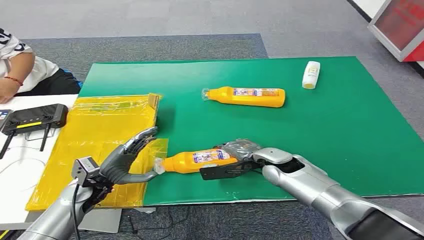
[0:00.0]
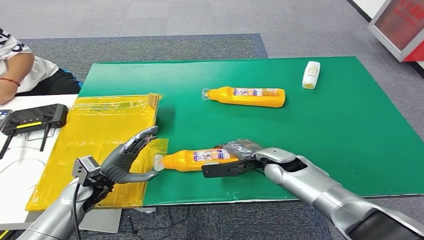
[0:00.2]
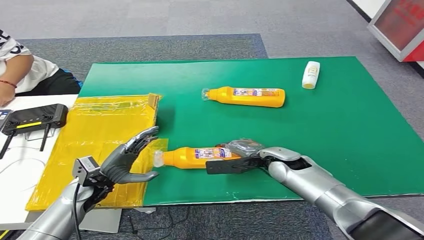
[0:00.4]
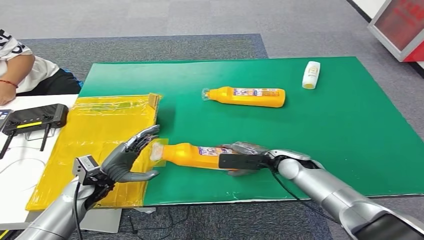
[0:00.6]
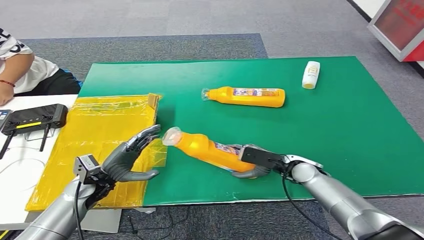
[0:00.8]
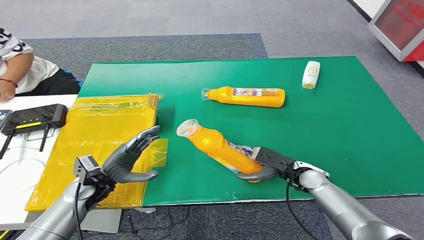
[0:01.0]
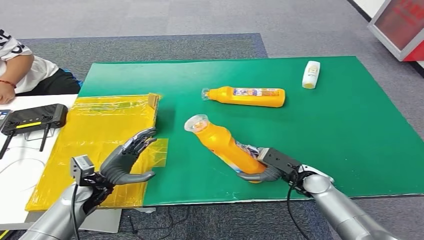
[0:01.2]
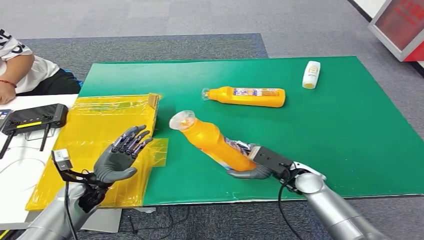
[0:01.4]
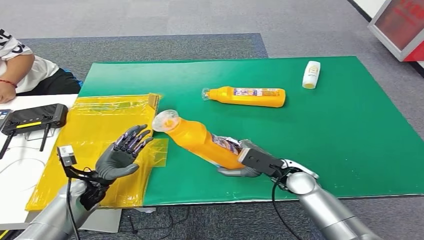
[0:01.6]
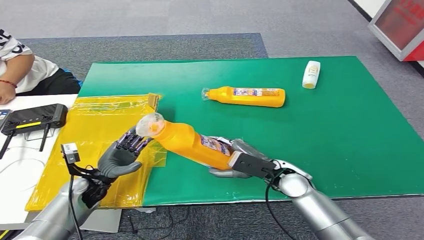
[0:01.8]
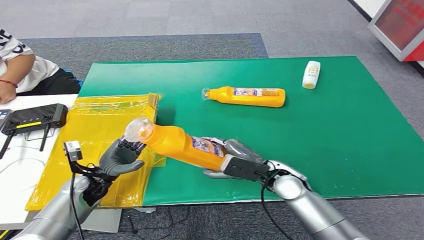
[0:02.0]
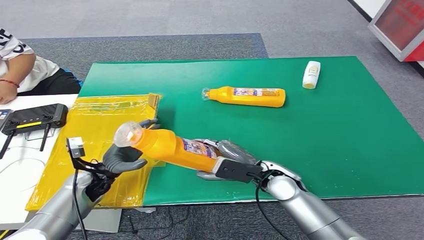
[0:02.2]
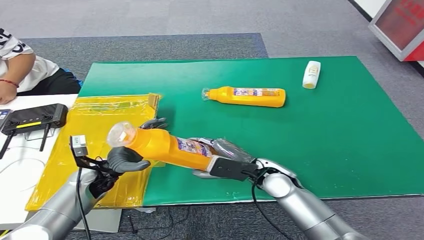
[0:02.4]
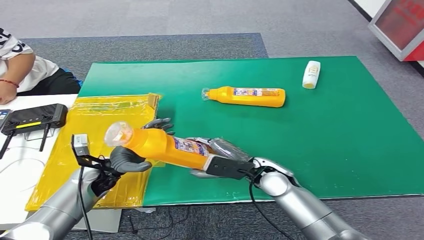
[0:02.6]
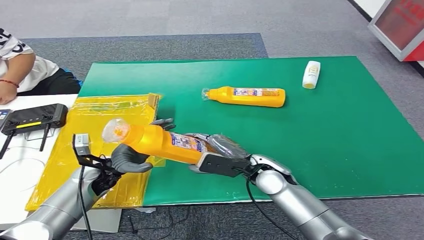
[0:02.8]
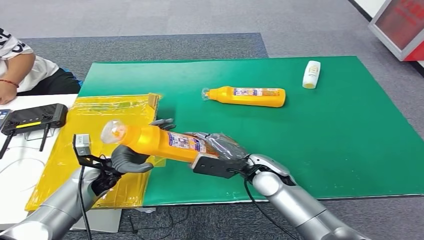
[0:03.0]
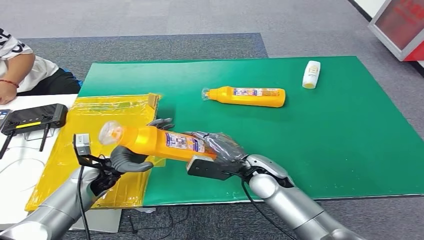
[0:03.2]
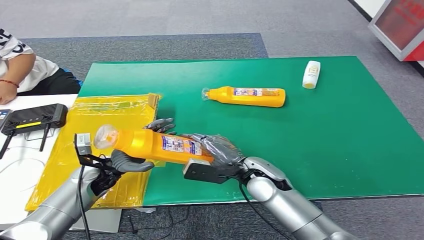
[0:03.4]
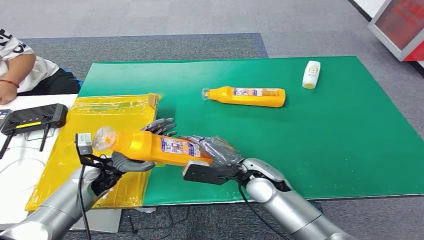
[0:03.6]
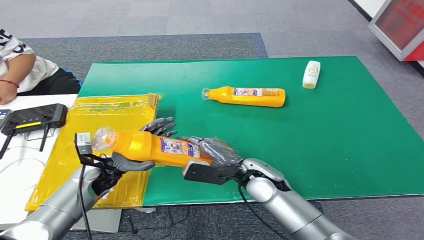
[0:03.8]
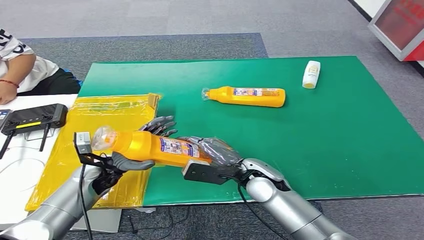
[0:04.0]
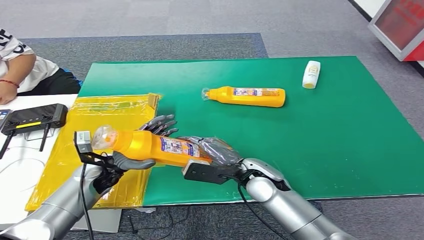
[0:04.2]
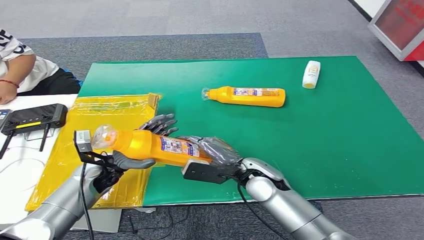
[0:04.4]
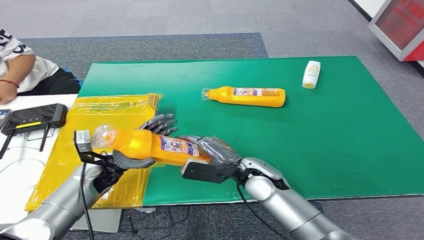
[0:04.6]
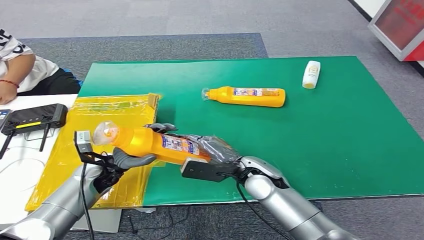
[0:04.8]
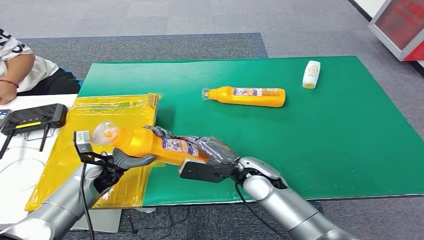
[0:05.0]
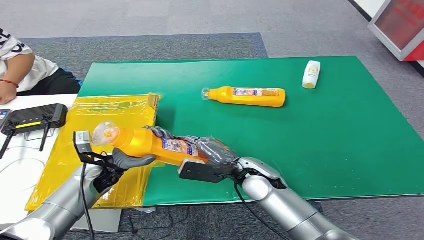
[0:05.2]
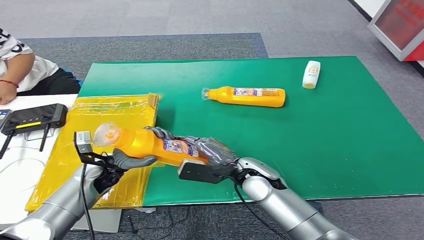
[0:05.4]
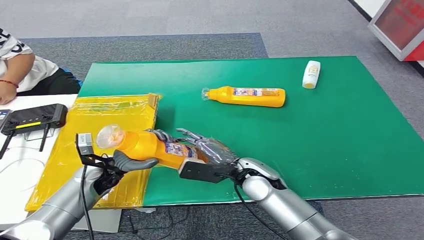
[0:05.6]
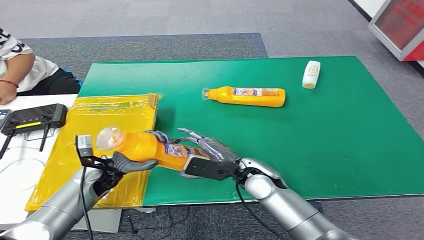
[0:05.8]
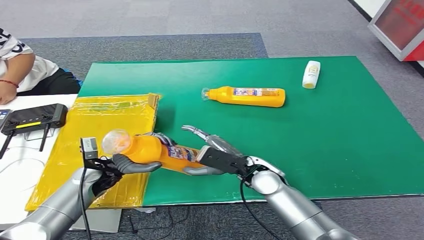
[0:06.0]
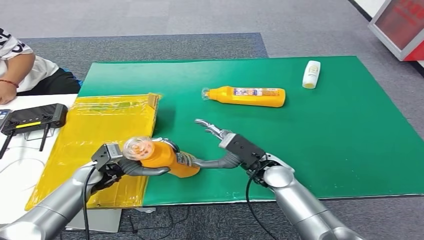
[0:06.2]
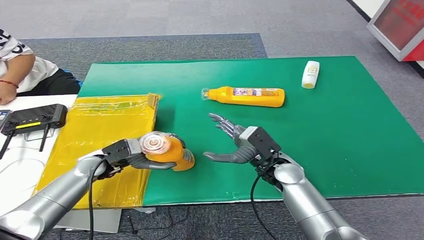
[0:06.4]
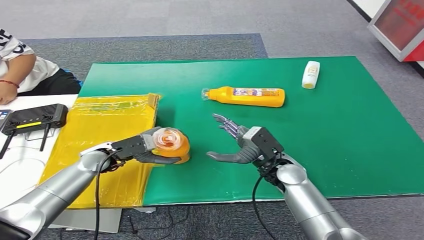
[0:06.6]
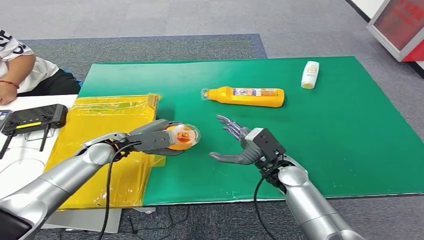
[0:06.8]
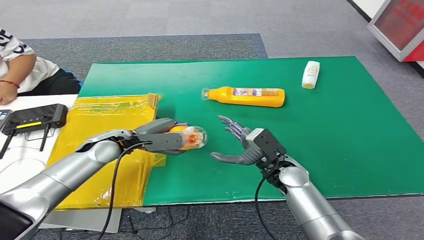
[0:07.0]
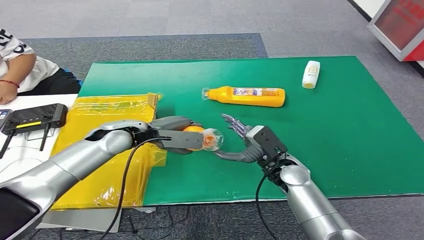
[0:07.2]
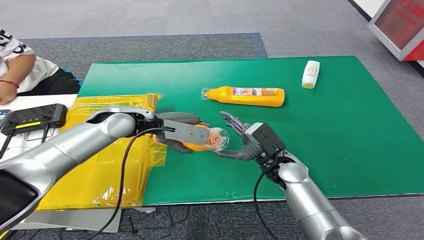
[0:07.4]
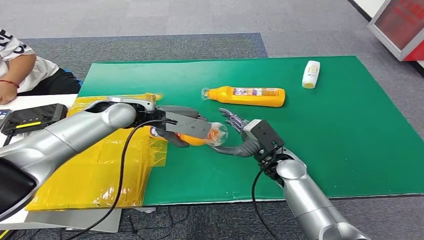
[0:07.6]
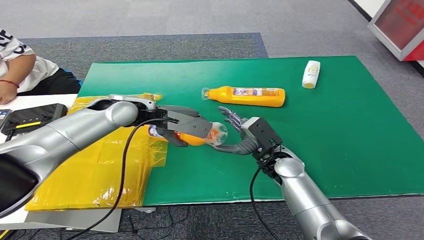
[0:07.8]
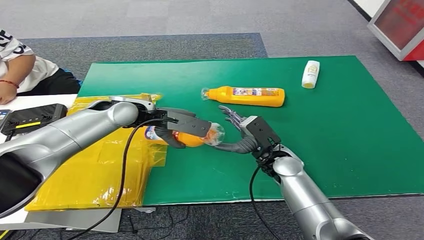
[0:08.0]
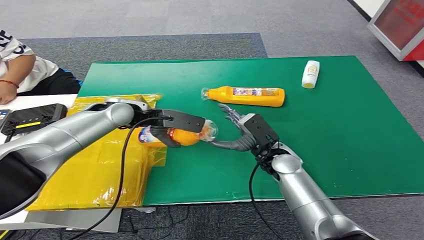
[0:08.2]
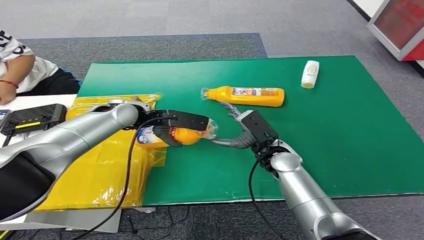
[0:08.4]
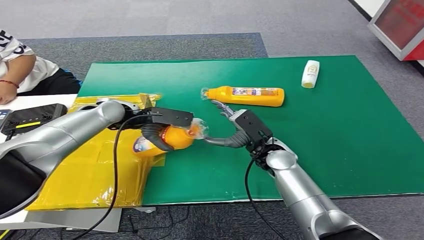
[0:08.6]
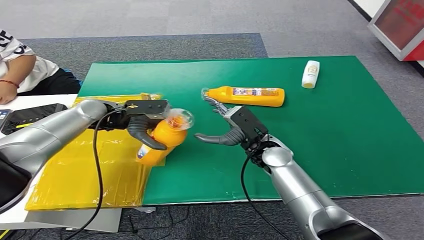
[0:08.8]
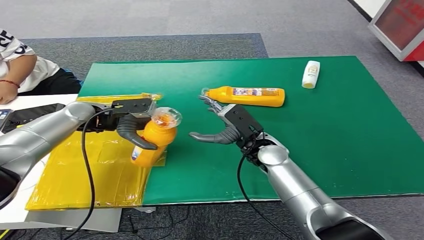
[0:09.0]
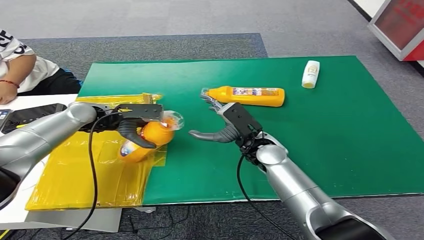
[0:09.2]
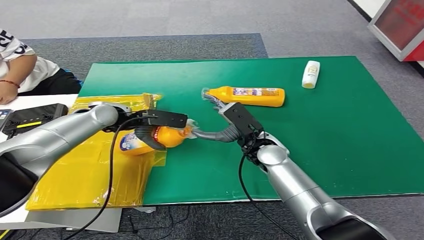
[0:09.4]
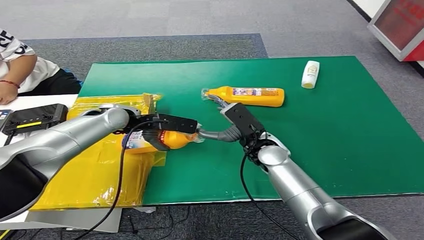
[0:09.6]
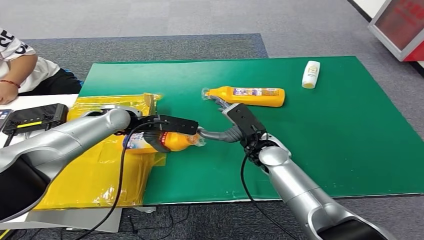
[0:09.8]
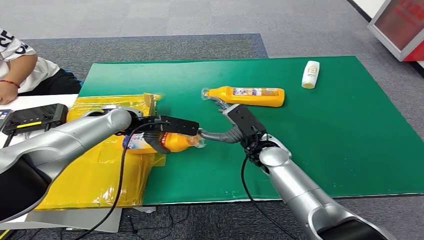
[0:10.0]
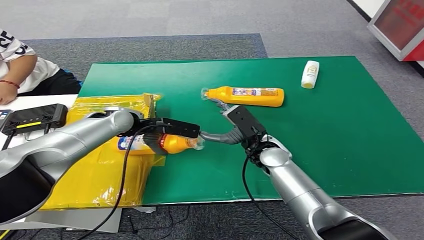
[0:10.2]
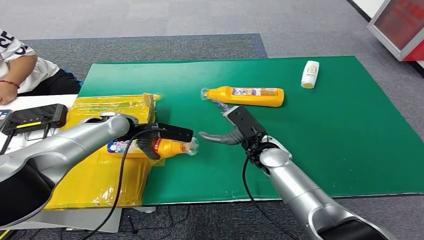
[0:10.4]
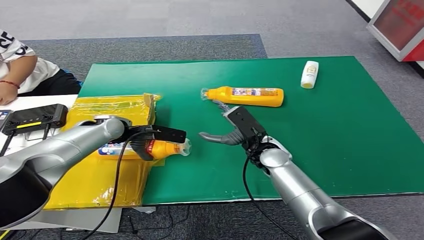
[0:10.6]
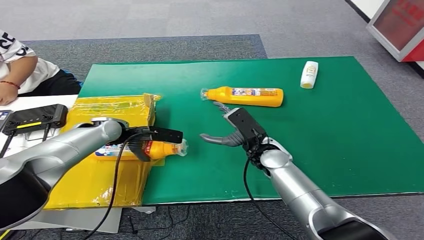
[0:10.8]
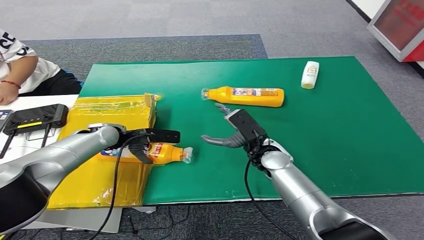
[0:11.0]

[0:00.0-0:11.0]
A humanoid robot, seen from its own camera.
Step, 0:00.0 to 0:02.6: Pick up the bottle from the table.
0:01.6 to 0:03.2: The right hand travels to the left by some 10 cm. The left hand moves roughly 5 cm.
0:03.2 to 0:04.8: Neither hand changes place.
0:07.8 to 0:09.4: The right hand ends up about 5 cm from where it was. Meanwhile the left hand is displaced to the left by some 5 cm.
0:09.4 to 0:11.0: The left hand heads downward, covering roughly 5 cm.

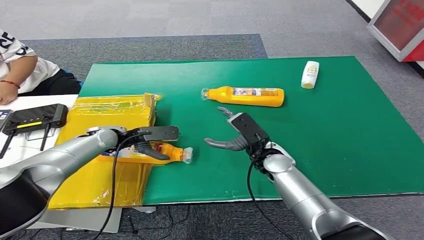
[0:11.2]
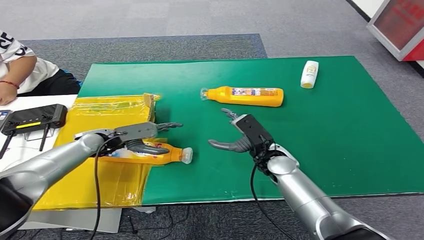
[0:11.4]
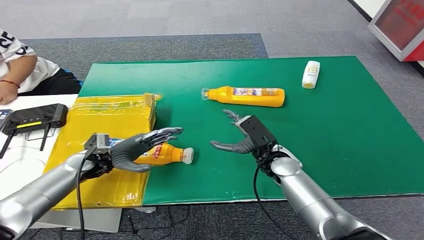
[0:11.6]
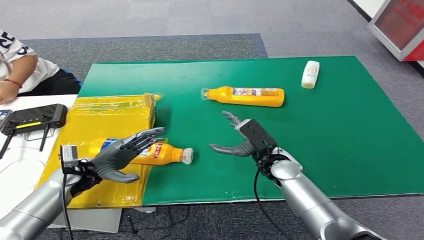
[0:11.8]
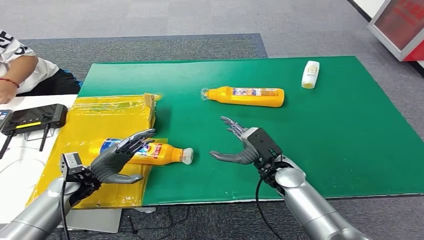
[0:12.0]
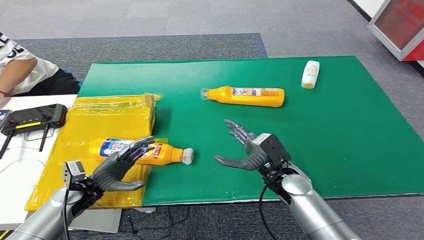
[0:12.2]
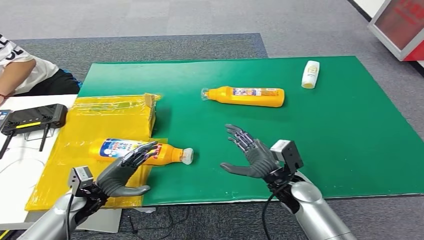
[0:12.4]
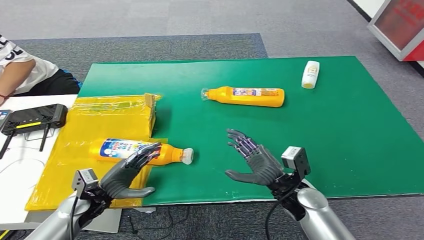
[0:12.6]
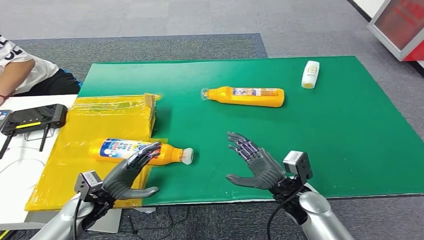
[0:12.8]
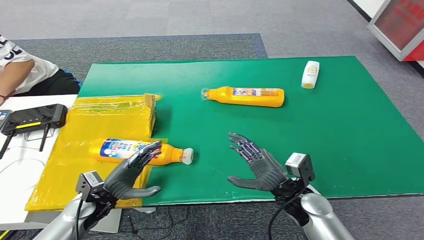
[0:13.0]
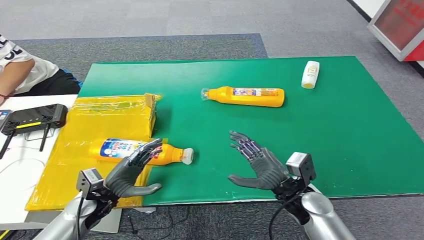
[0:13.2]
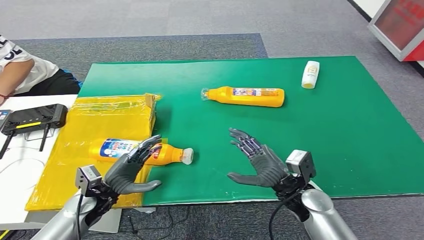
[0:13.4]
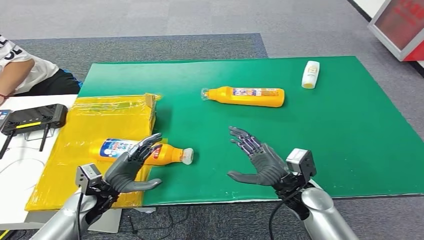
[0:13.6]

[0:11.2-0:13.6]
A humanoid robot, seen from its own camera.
Step, 0:11.2 to 0:13.6: Turn the bottle to the front side.
0:12.4 to 0:13.6: The hands make only small movements.

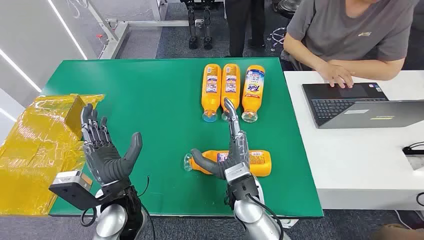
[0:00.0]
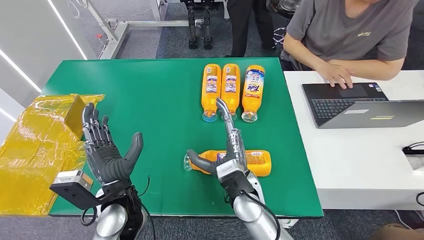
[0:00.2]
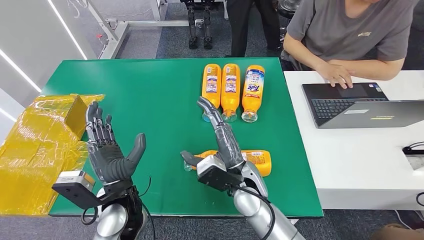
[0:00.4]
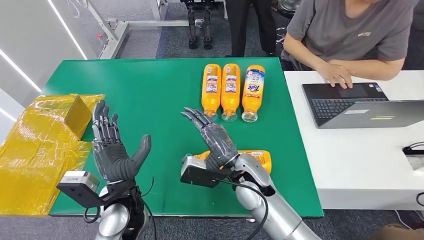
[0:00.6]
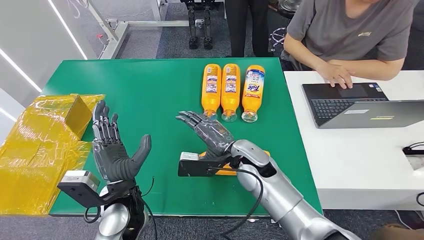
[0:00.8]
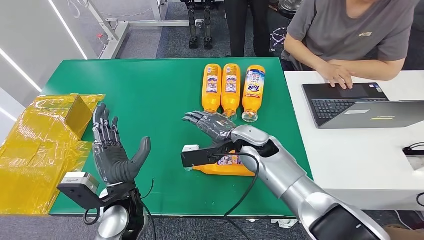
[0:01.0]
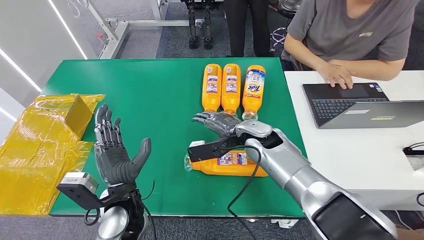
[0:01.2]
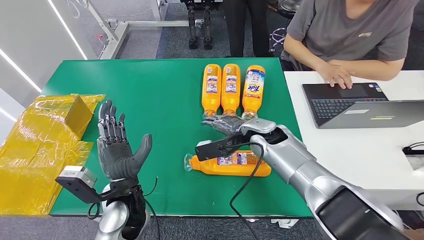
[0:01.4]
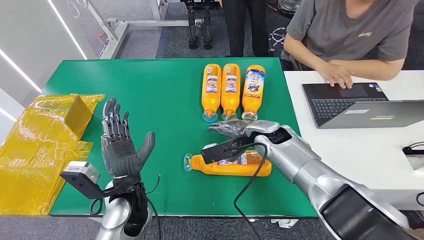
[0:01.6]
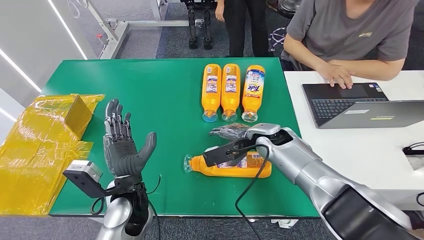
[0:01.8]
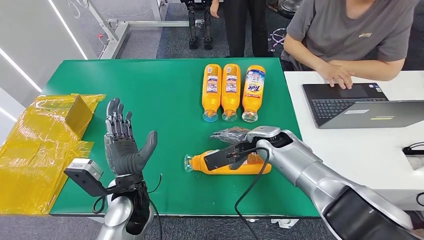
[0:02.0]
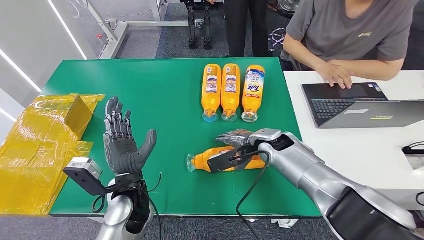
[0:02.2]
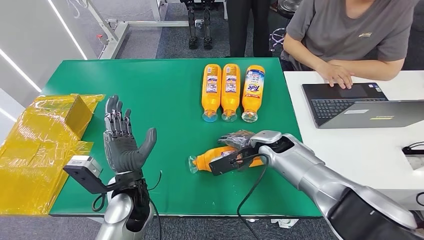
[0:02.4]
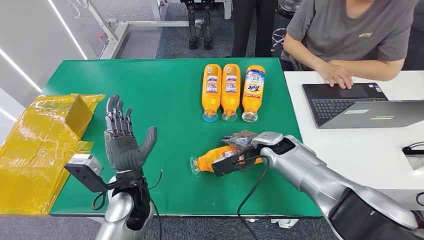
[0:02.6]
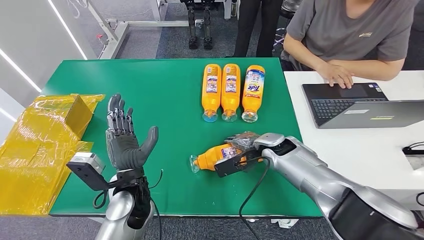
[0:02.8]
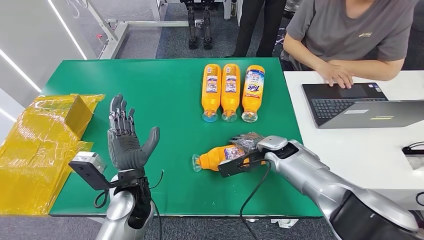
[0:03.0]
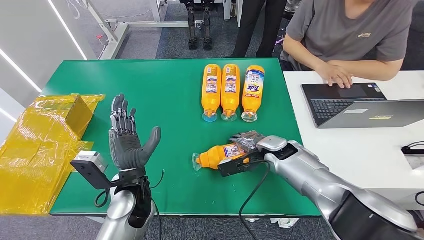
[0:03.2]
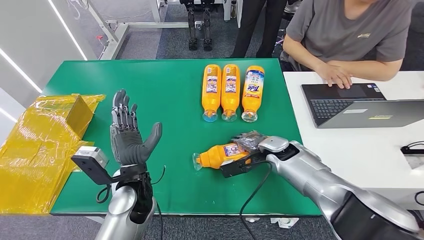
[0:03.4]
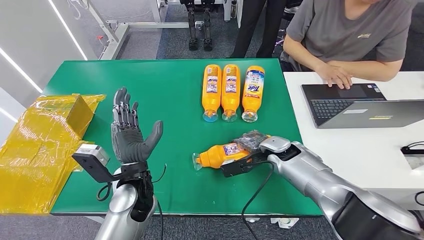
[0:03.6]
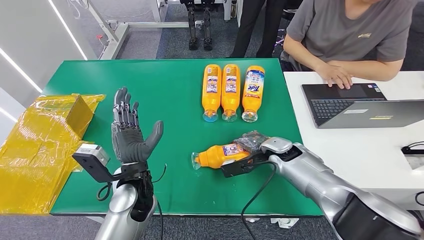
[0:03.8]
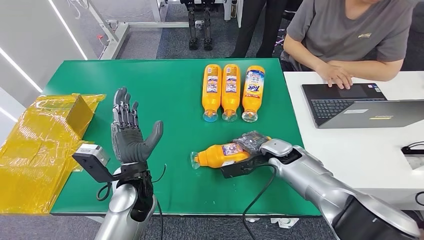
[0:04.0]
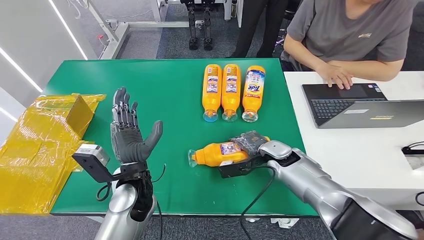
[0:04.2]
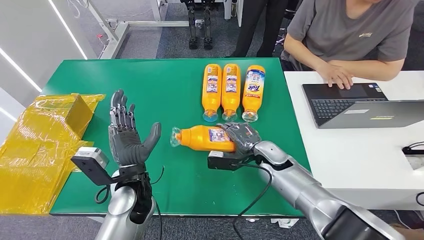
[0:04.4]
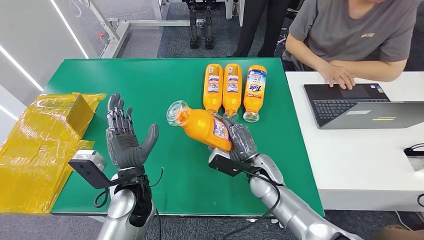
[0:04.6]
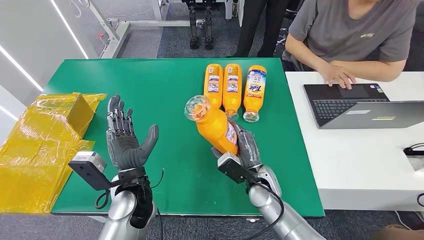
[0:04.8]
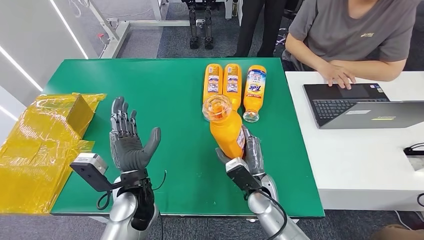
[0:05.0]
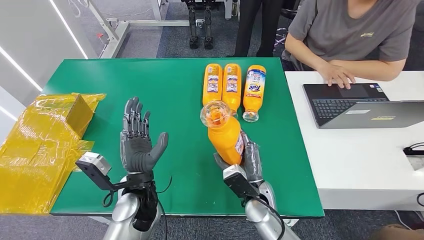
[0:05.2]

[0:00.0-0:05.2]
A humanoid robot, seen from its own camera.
Step, 0:00.0 to 0:05.2: Pick up the bottle from the table.
0:01.8 to 0:03.4: The right hand travels downward by approximately 5 cm.
